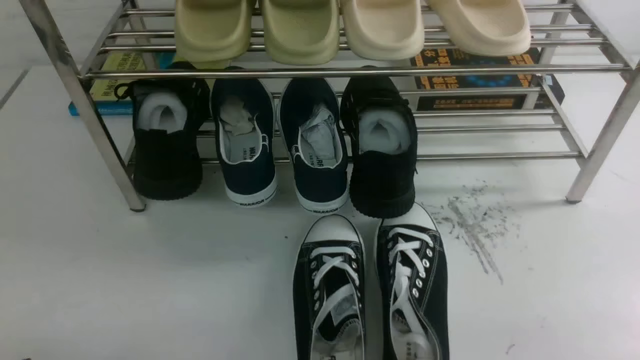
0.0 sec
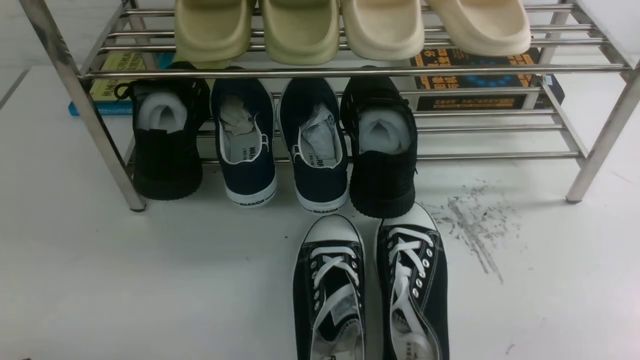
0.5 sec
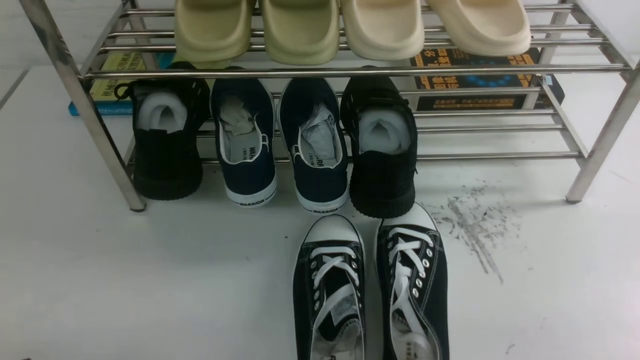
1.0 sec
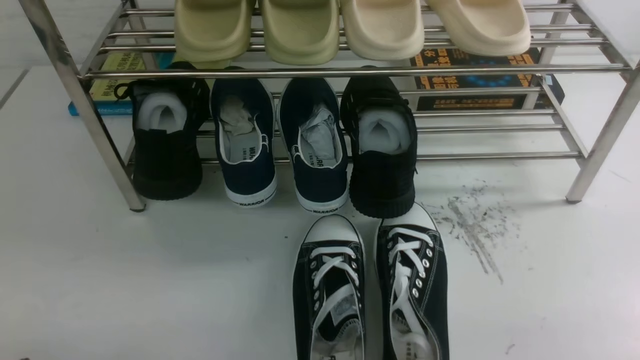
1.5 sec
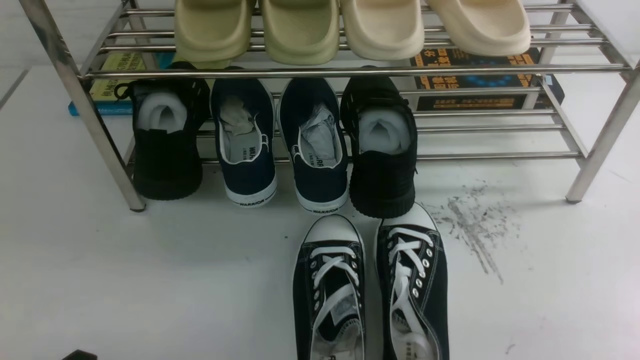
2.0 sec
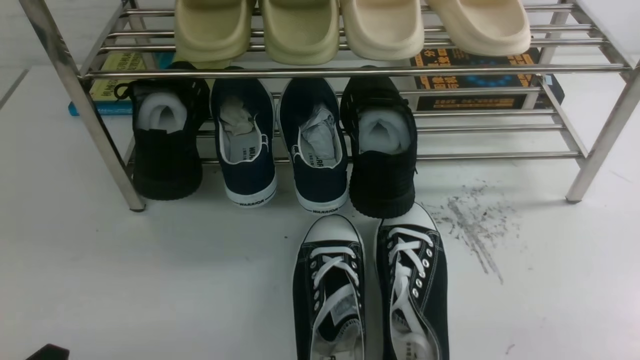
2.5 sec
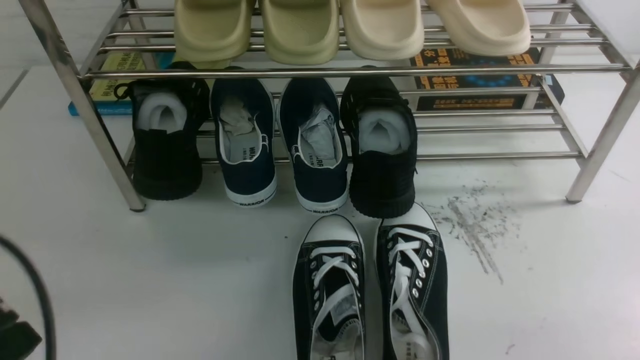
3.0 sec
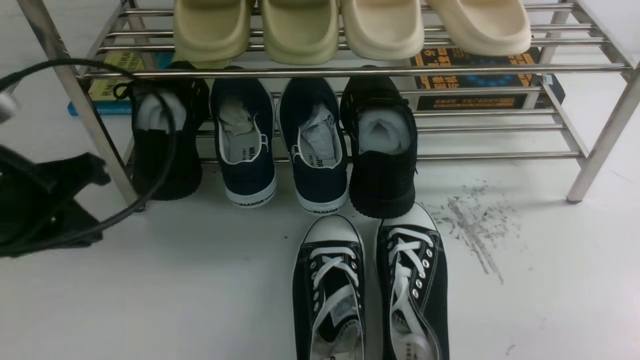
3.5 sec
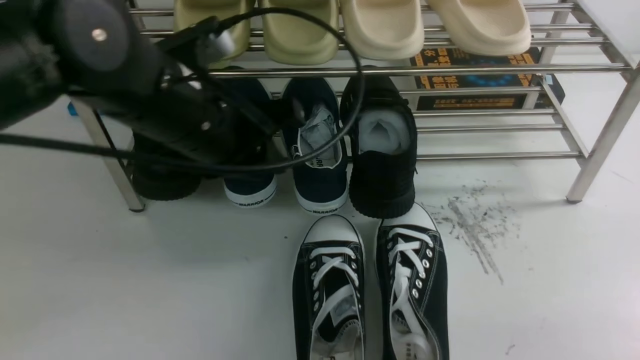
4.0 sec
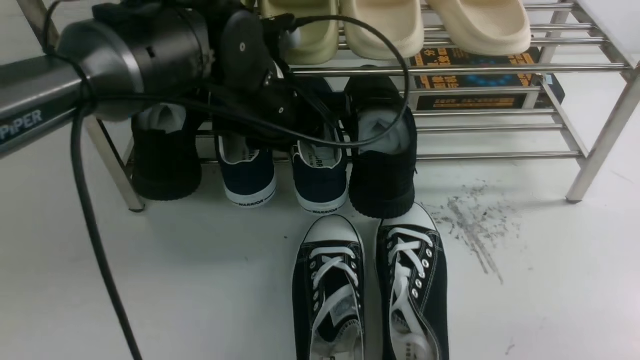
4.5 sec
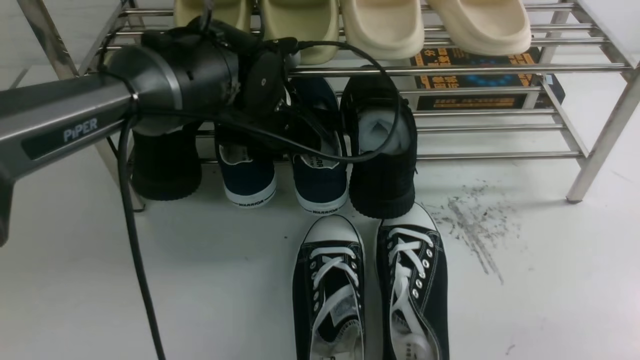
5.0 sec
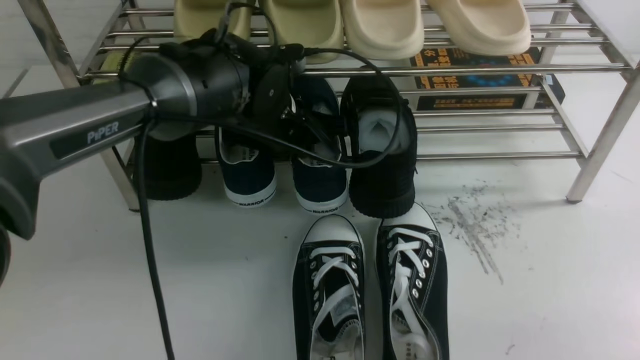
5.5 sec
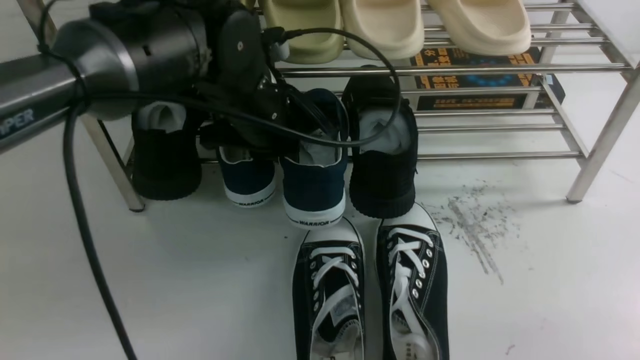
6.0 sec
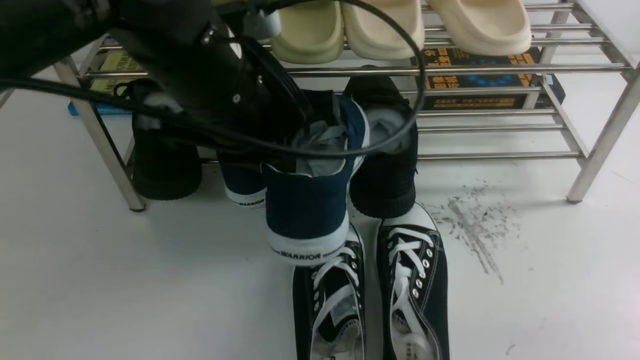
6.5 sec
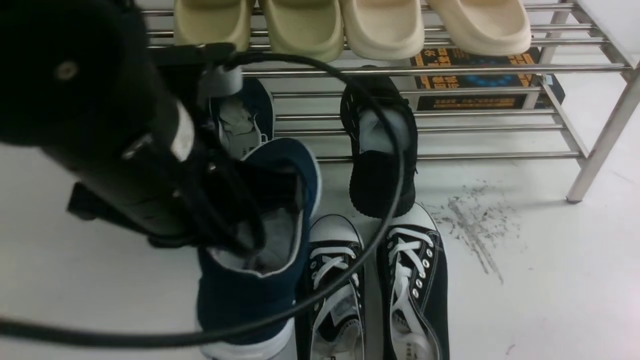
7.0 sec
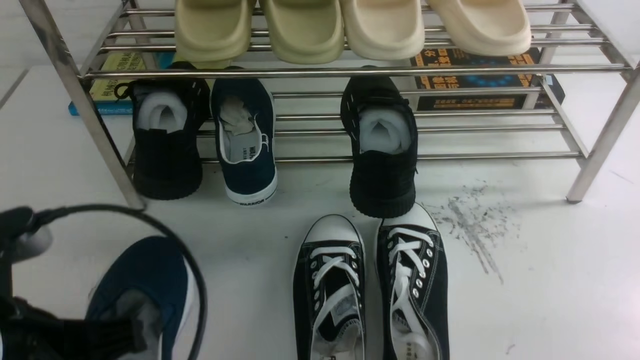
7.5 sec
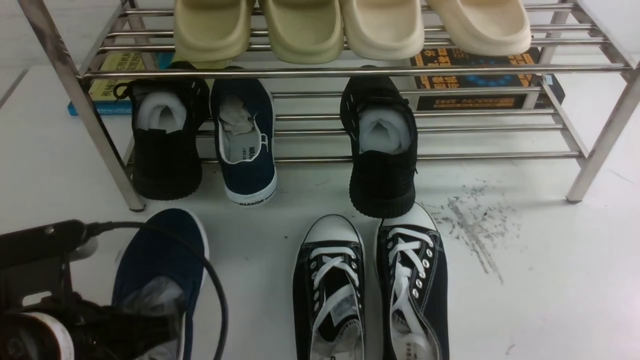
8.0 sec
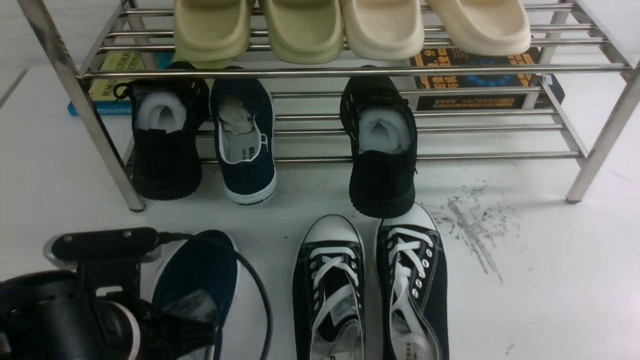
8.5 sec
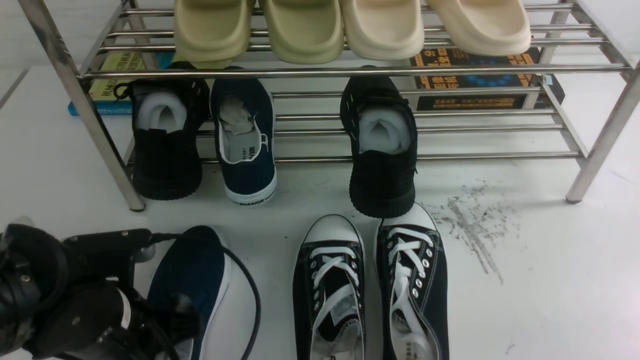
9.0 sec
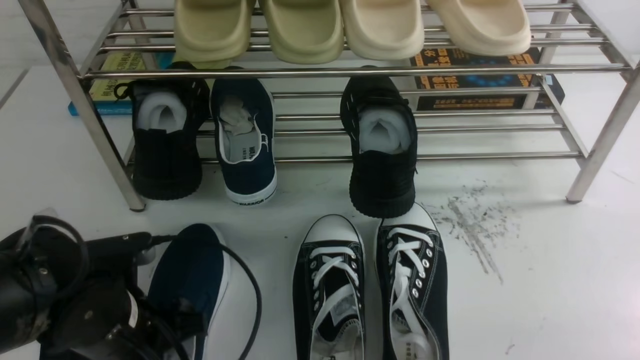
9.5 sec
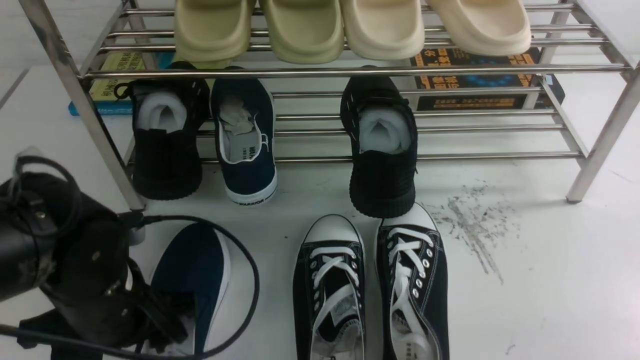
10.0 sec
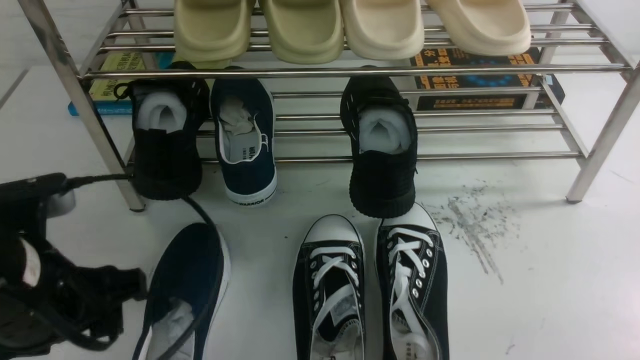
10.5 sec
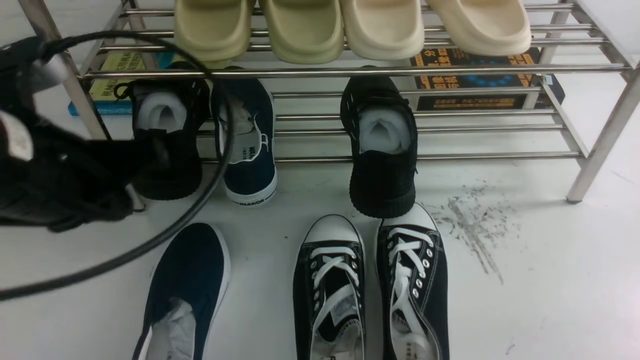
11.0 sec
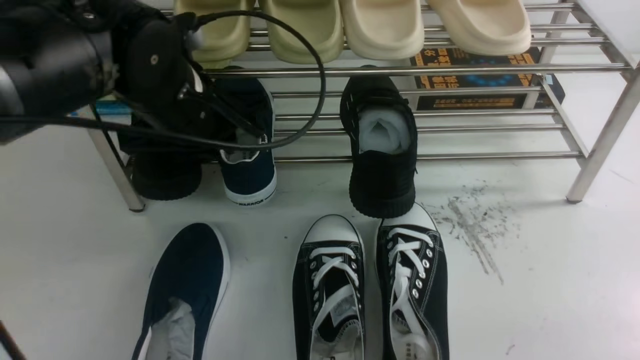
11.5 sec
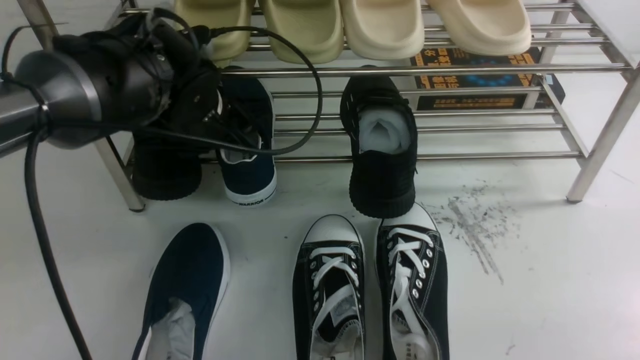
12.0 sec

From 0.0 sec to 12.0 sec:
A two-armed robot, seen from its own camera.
Step, from 0.0 sec to 6.0 sec: use the left arm to clamp a shoe on the left side of the shoe rack.
Step, from 6.5 sec to 10.0 sec: Use your left arm to remove the clamped shoe from the shoe rack and put it down.
From 2.0 sec to 4.0 sec: The left gripper heads forward, upward and to the right, covering about 30 cm, and closes, then opens again.
From 4.0 sec to 6.0 sec: The left gripper moves forward, roughly 5 cm, and closes its fingers.
From 6.0 sec to 8.0 sec: The left gripper moves backward and to the left, about 25 cm.
From 8.0 sec to 10.0 sec: The left gripper travels forward by approximately 5 cm, and opens its fingers.
From 10.0 sec to 12.0 sec: The left gripper heads forward, to the right and upward, covering roughly 20 cm, and closes its fingers.

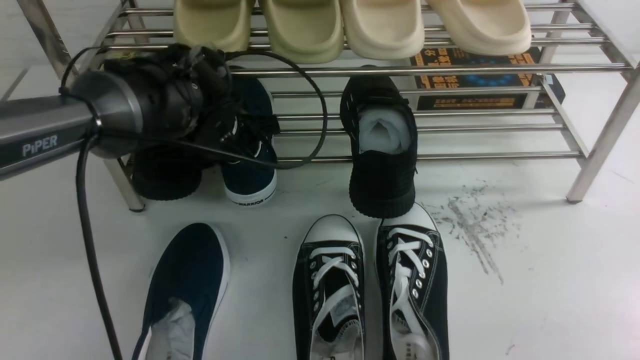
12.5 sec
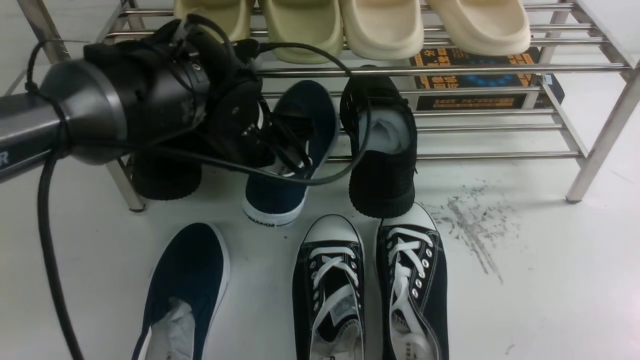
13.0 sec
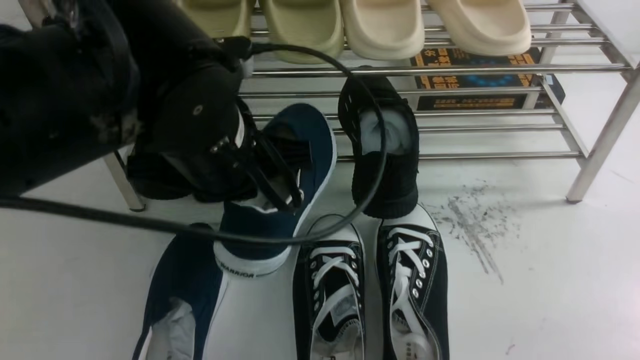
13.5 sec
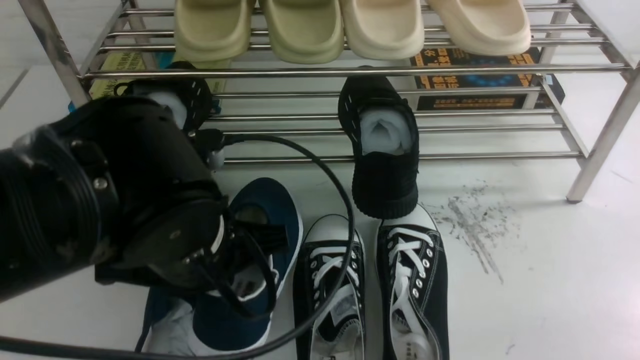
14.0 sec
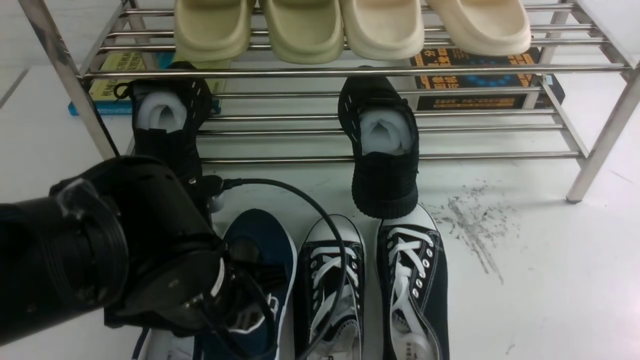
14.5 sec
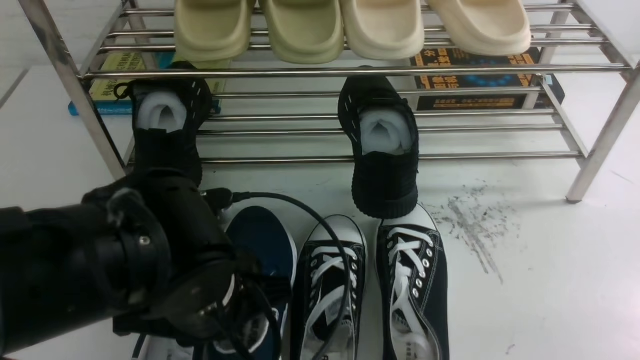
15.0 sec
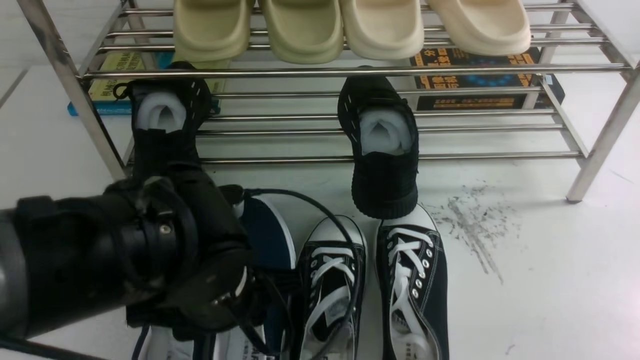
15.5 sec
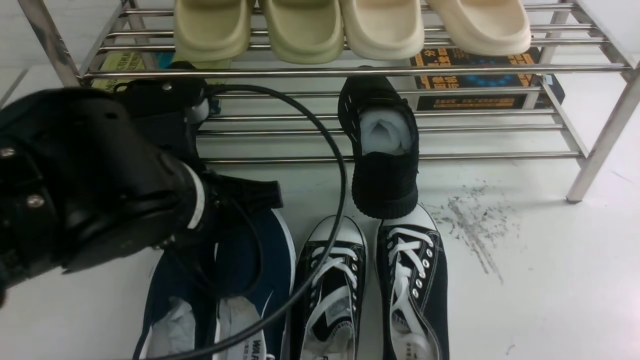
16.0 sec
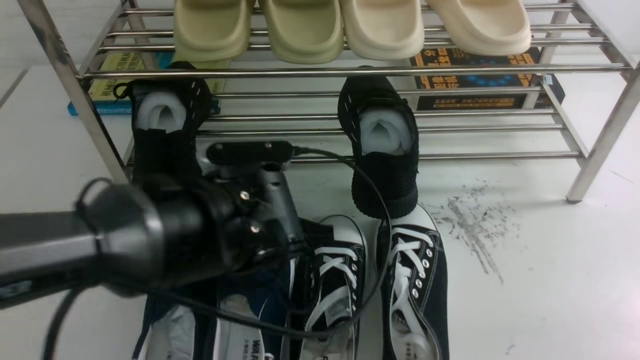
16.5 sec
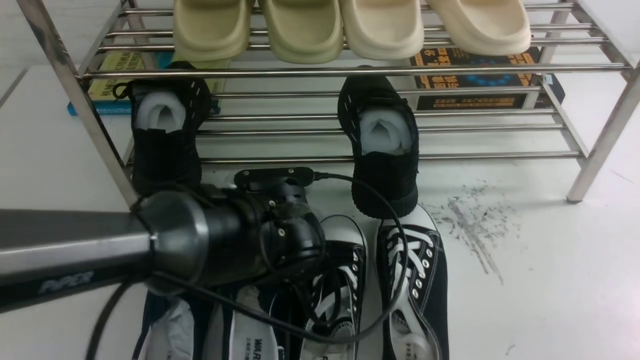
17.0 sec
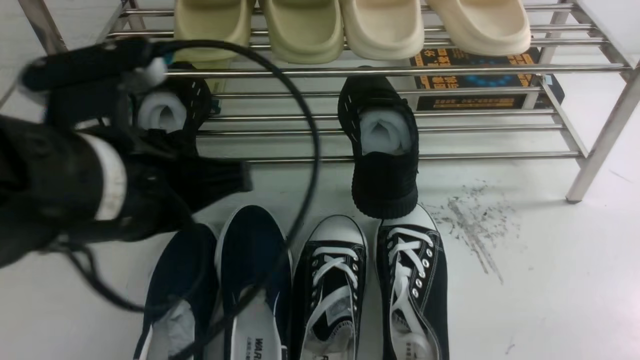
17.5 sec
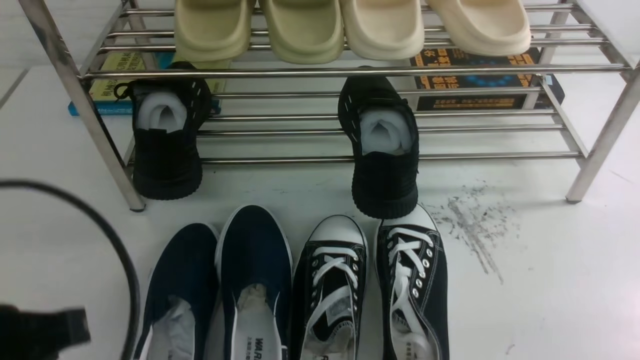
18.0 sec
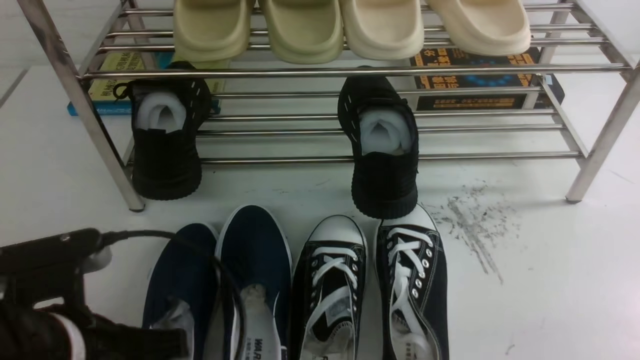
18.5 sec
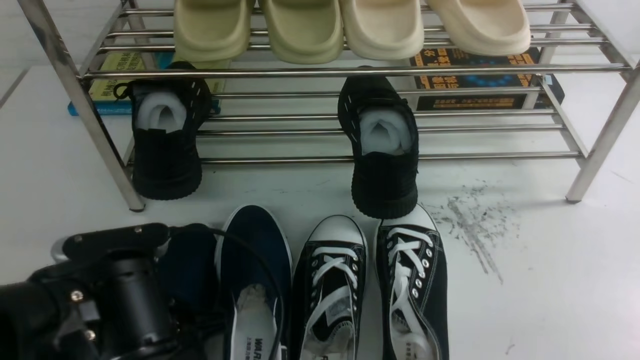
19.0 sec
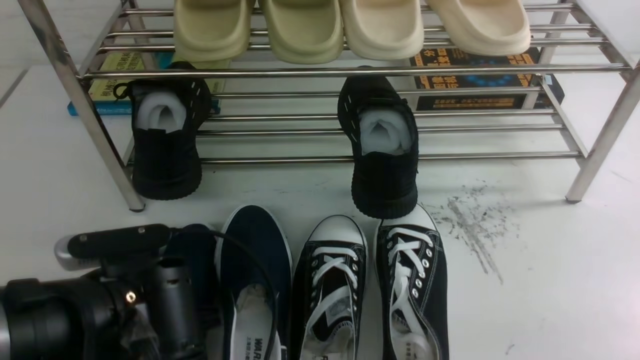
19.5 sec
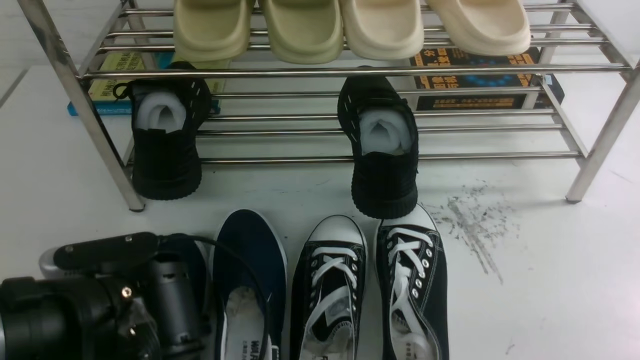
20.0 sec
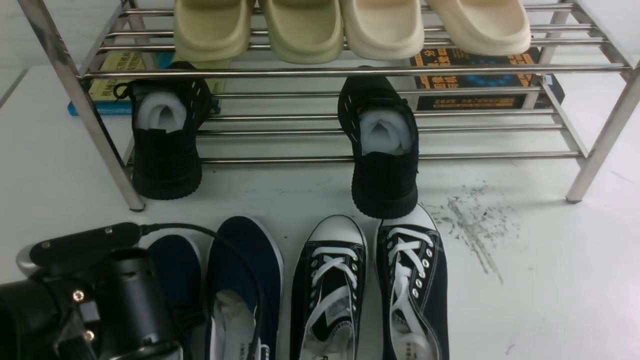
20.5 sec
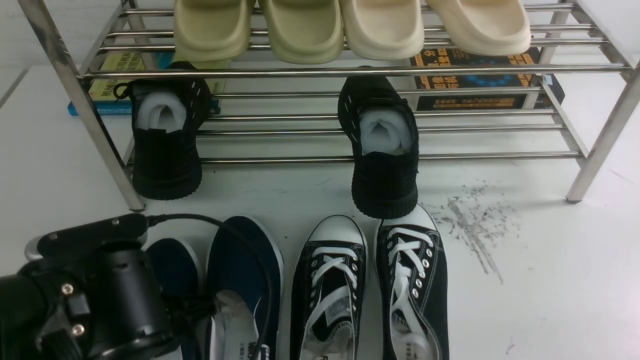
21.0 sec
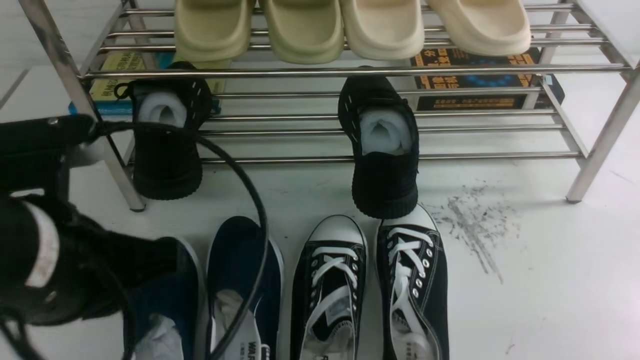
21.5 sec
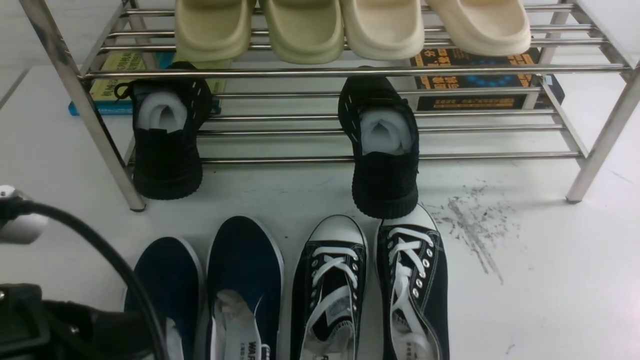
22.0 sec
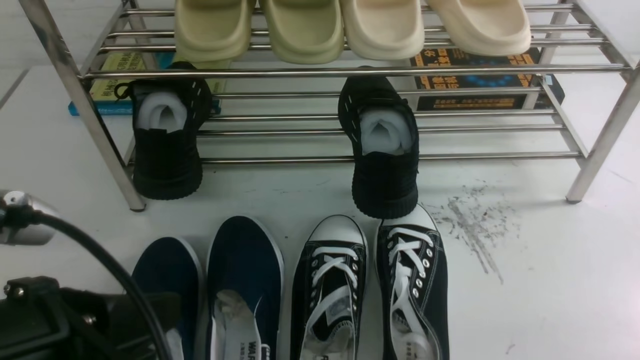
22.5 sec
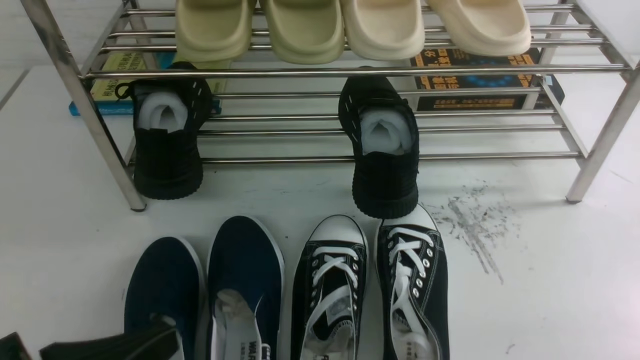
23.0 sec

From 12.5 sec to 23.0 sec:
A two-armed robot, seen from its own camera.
Step, from 13.5 sec to 15.5 sec: Use your left arm to remove the clamped shoe from the shoe rack and put it down.
From 12.5 sec to 14.5 sec: The left gripper travels backward by approximately 20 cm.
From 14.5 sec to 16.5 sec: The left gripper shifts roughly 10 cm forward and to the right, and opens, then closes again.
From 16.5 sec to 19.0 sec: The left gripper goes some 15 cm to the left and backward, and opens its fingers.
From 19.0 sec to 21.0 sec: The left gripper closes and opens again.
From 21.0 sec to 23.0 sec: The left gripper heads backward and to the left, covering some 15 cm, and closes.
